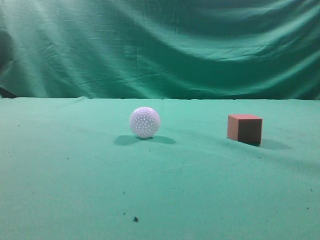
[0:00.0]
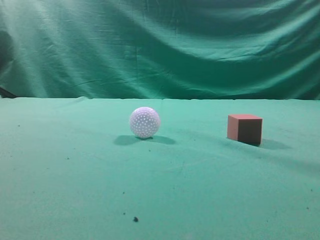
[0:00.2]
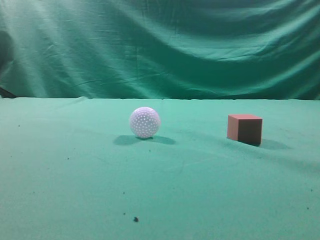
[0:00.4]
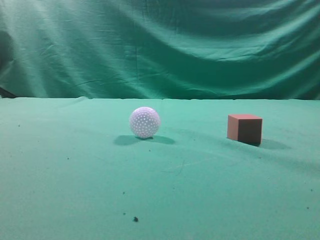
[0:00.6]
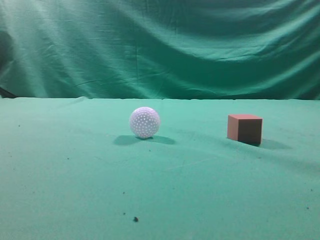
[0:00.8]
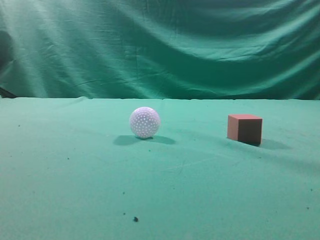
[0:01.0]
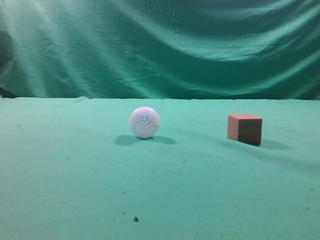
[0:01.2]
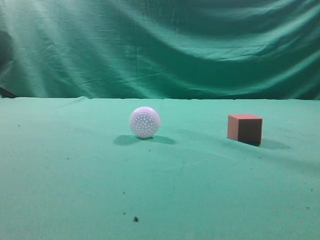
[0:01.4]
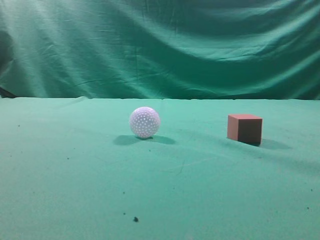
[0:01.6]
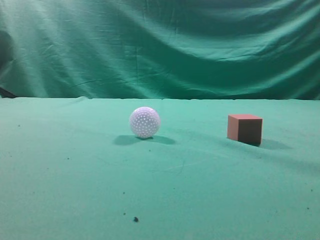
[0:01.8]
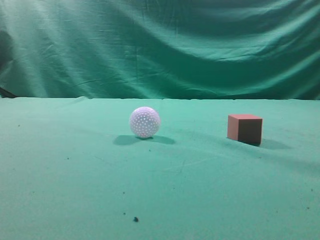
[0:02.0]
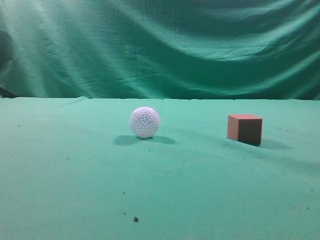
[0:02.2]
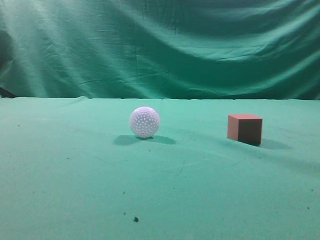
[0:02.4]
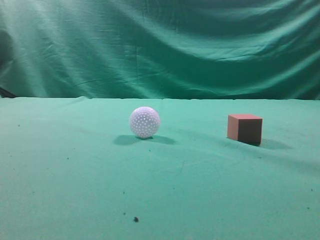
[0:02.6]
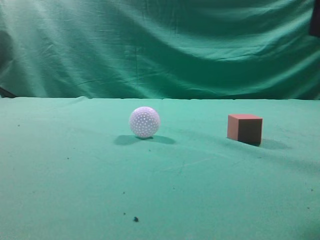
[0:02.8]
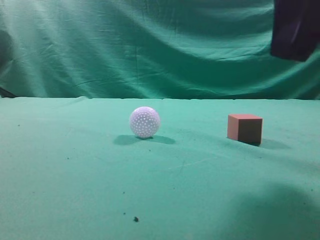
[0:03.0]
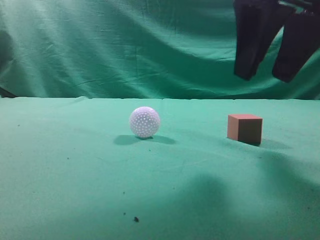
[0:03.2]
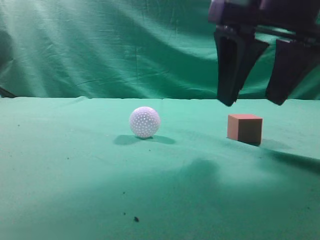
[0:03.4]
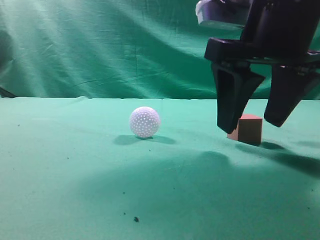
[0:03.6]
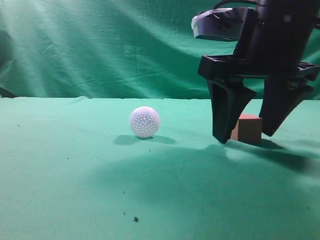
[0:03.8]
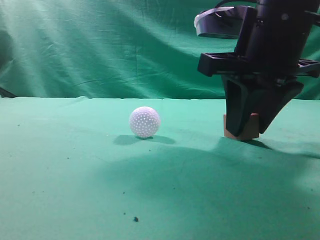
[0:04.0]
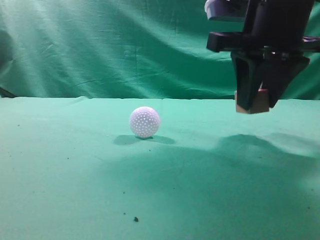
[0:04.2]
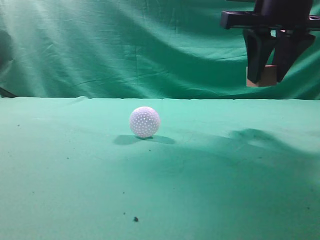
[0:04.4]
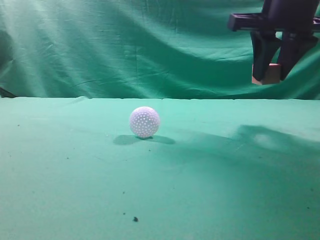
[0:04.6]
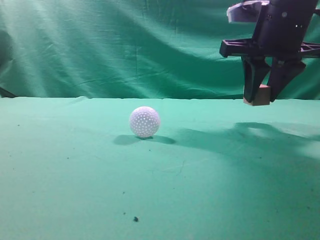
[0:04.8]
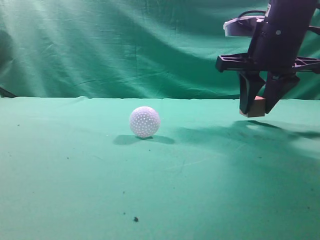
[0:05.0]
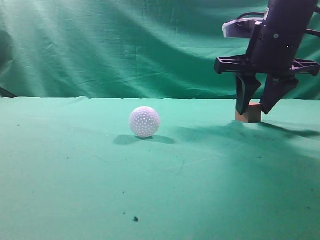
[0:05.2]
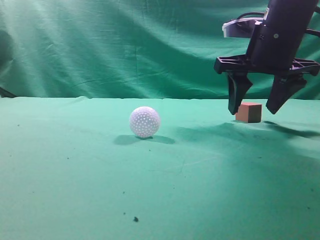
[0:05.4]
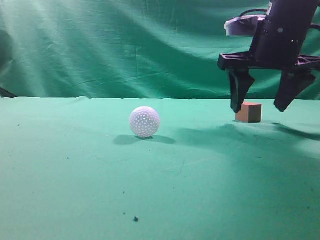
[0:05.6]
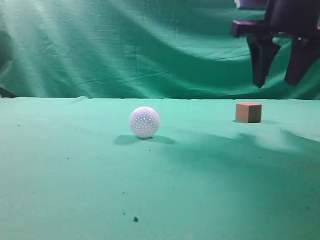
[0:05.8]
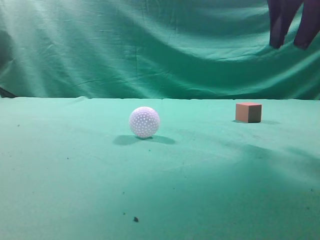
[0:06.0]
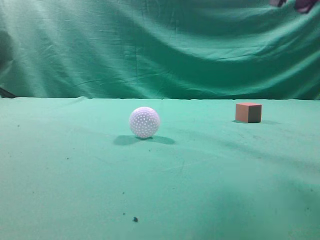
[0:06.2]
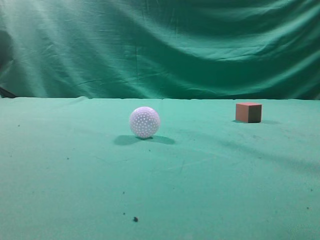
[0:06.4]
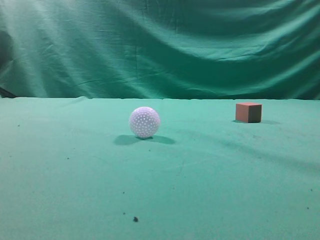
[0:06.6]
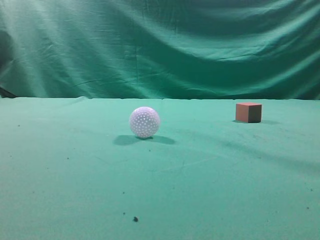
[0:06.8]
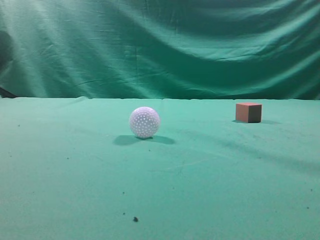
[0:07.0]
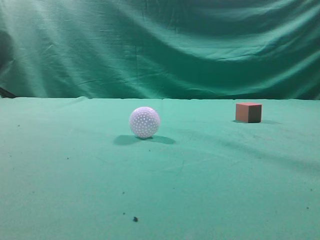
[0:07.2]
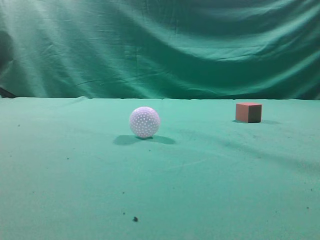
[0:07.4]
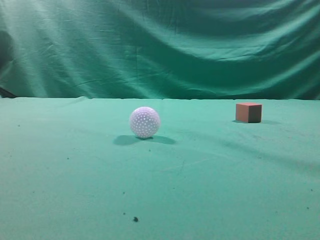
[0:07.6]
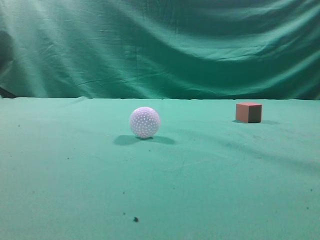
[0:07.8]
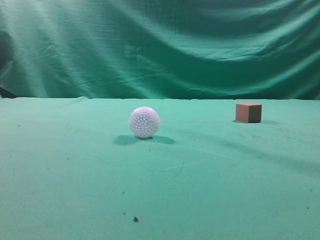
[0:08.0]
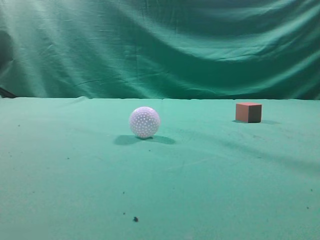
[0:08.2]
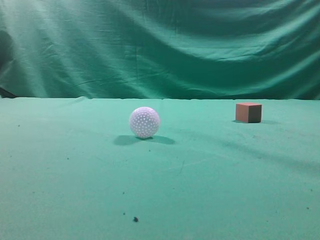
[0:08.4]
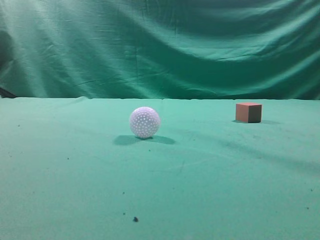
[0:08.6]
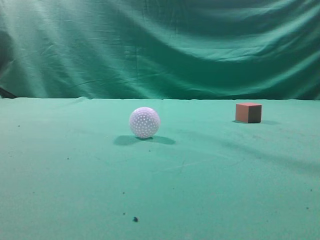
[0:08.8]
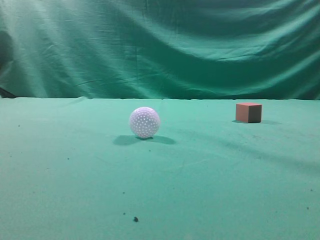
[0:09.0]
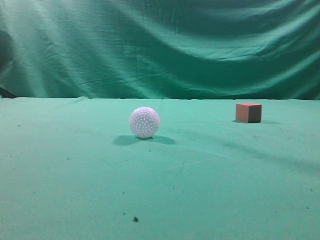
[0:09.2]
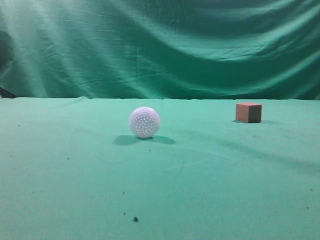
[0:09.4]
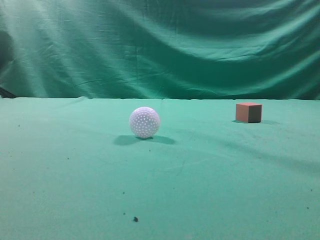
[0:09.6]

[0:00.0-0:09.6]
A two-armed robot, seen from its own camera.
Task of the whole recording: pick up the cube block and place it in another position on the table.
Step, 0:00.0 to 0:04.0: Pick up the small cube.
Step, 0:04.2 to 0:05.4: Place the small cube on the ahead of the table.
0:01.6 to 0:03.2: The right gripper travels forward and to the left by approximately 25 cm, and opens its fingers.
0:03.2 to 0:04.8: The right gripper travels forward by some 10 cm, and closes.
0:04.8 to 0:06.4: The right gripper shifts about 20 cm upward and backward, and opens, then closes once more.
